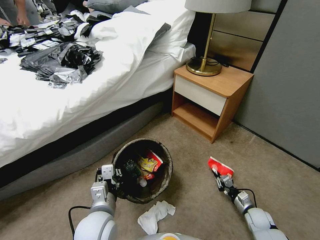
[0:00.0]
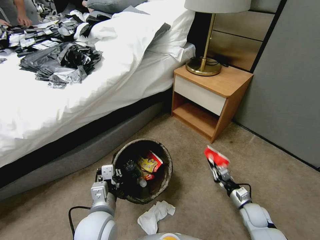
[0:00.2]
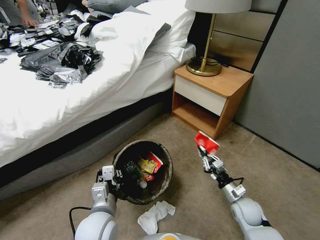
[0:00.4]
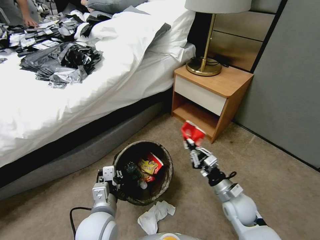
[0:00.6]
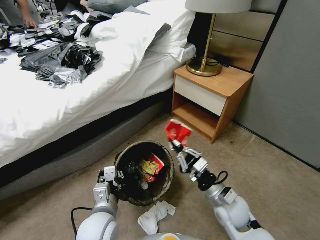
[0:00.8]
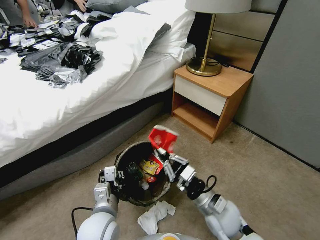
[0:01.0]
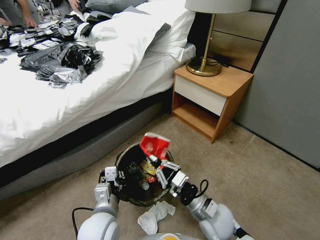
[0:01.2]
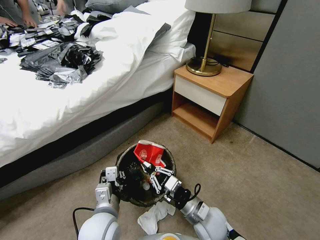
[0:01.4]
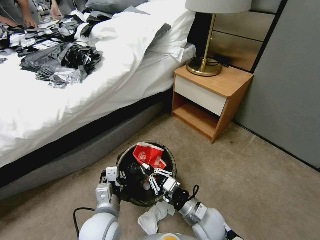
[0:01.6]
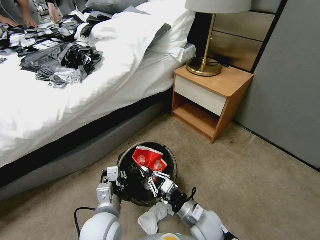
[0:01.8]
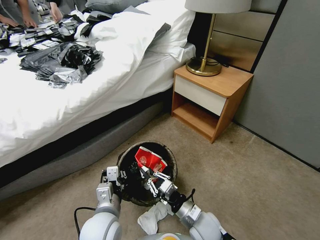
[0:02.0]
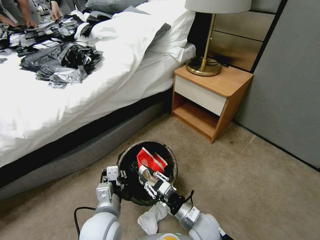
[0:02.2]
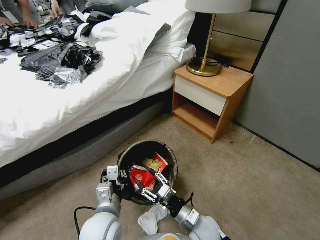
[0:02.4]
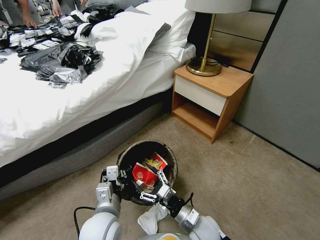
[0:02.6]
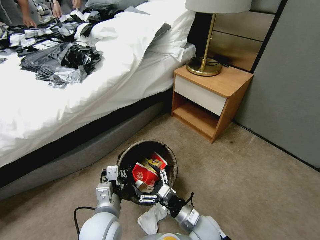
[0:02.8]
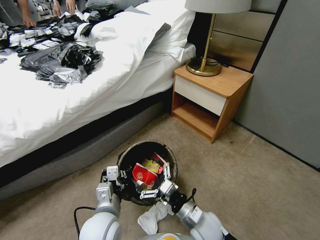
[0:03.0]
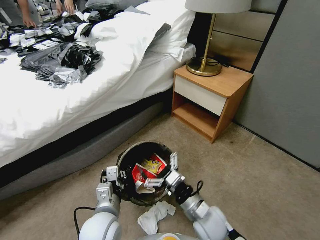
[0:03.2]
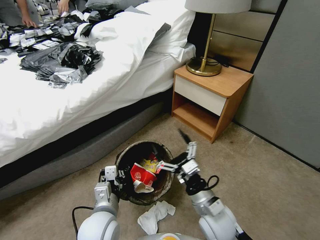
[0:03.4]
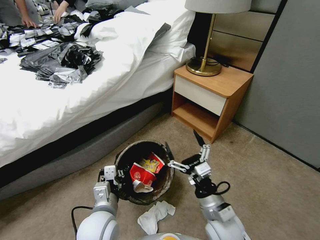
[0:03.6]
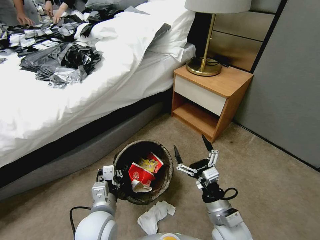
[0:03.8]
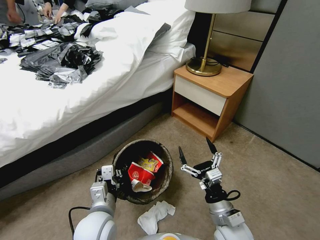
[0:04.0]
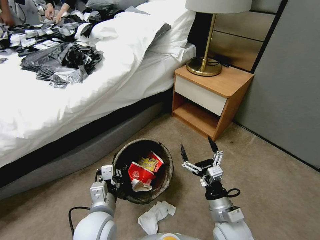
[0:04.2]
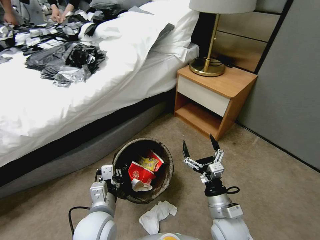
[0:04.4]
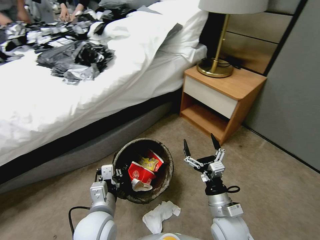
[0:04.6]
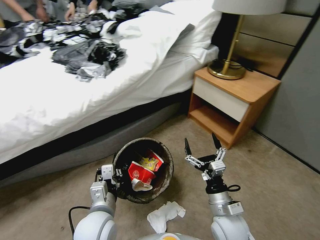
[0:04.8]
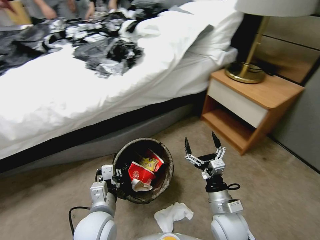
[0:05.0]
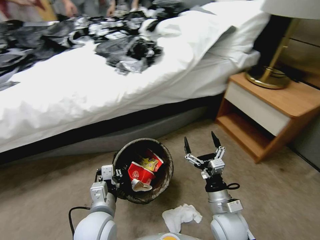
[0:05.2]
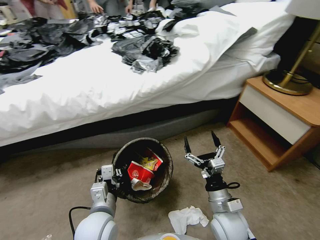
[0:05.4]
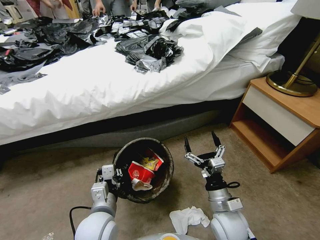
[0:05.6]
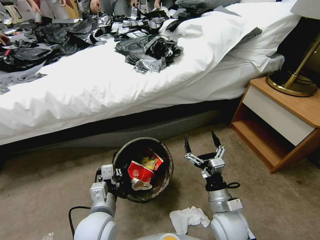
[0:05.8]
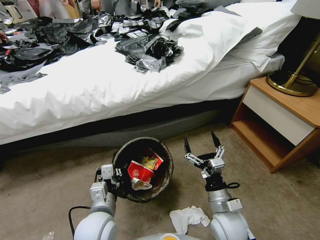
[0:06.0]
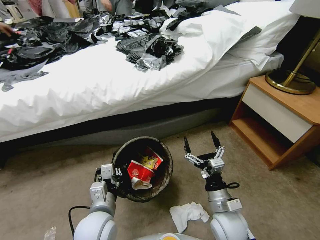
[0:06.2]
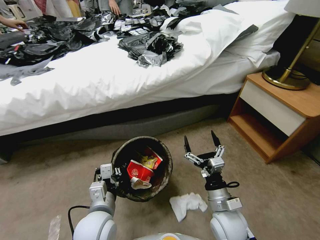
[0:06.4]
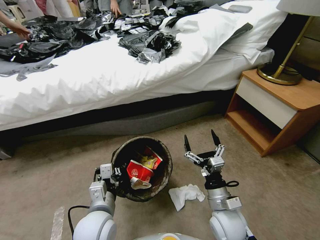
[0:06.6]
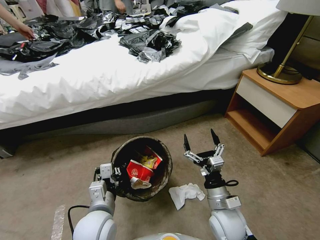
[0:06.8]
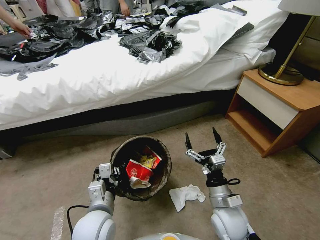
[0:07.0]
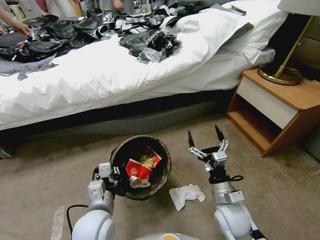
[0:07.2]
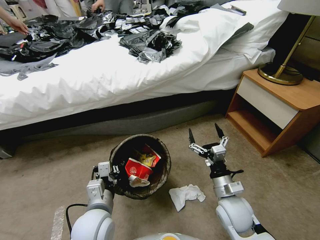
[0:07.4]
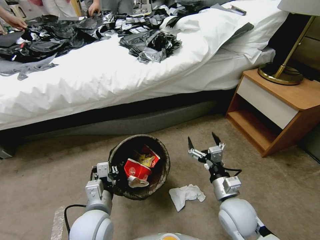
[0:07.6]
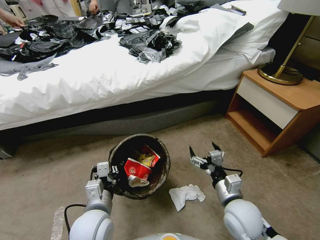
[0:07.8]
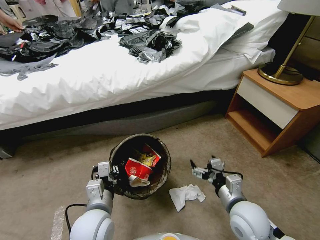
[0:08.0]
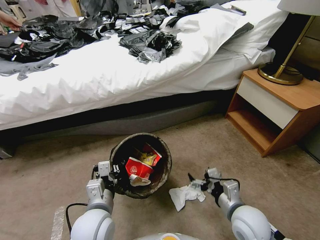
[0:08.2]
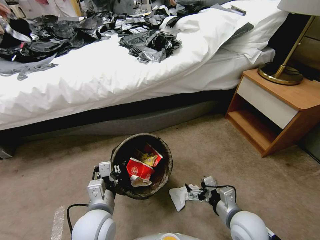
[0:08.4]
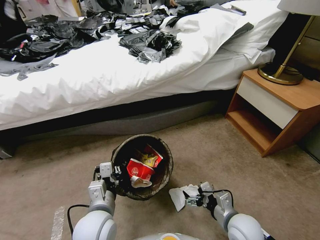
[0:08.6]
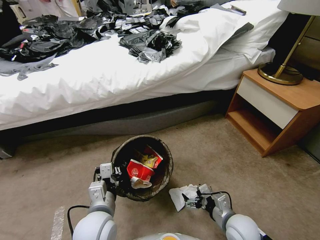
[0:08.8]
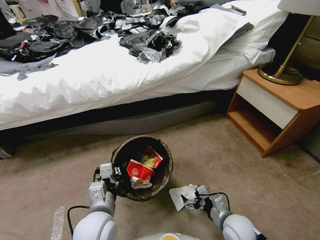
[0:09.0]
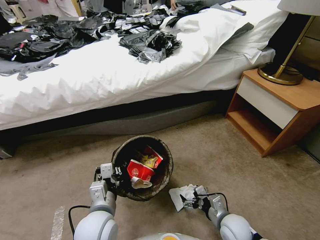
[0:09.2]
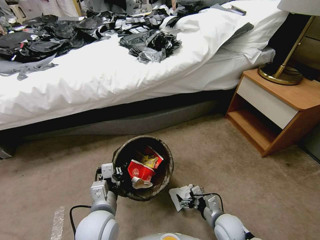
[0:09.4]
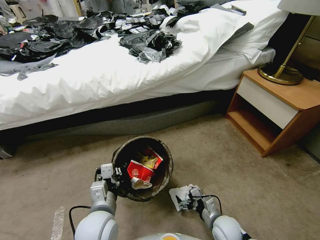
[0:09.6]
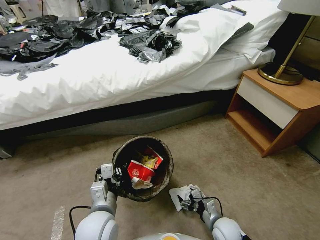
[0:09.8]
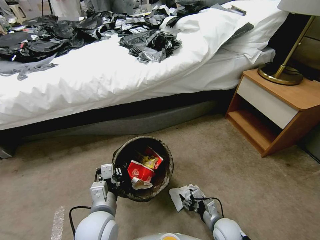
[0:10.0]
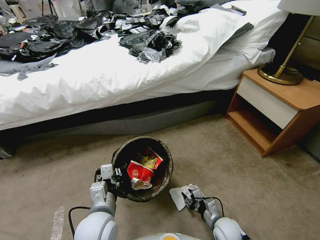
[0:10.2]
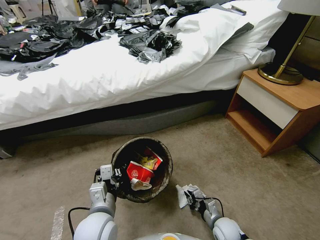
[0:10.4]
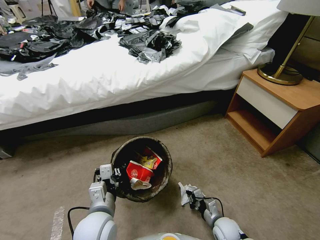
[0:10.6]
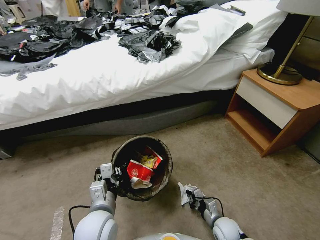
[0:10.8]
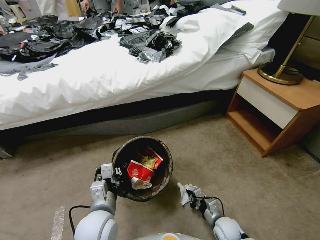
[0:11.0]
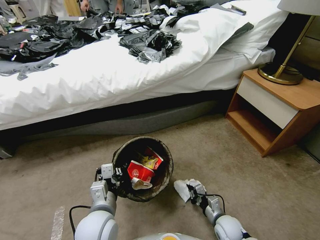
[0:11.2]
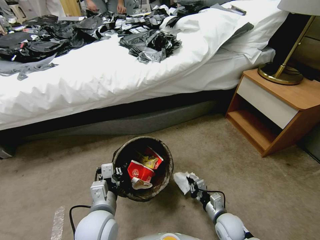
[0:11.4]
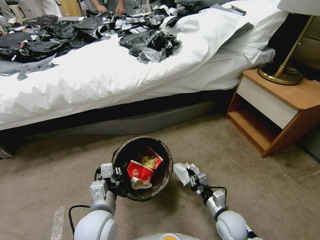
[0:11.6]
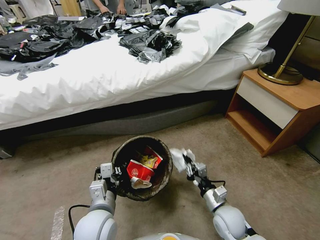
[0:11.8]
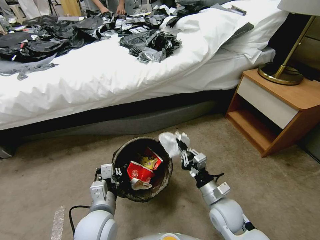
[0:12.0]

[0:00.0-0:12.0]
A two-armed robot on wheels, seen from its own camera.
Task of the whole recording: Pick up the trash bin, then pick up the garbage from the floor and place it into the trash bin.
0:00.0 to 0:01.6: The right gripper is displaced to the left and upward by some 30 cm.
0:01.6 to 0:03.0: The right gripper opens its fingers.
0:03.0 to 0:04.4: The right gripper heads to the right, covering approximately 5 cm.
0:07.6 to 0:09.0: The right gripper travels downward by approximately 10 cm.
0:09.0 to 0:10.4: The right gripper travels downward by about 10 cm, and closes up.
0:10.4 to 0:12.0: The right gripper is displaced upward by approximately 15 cm.

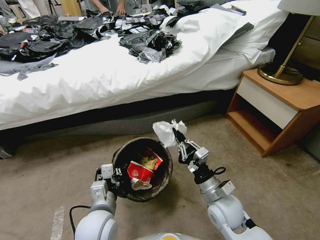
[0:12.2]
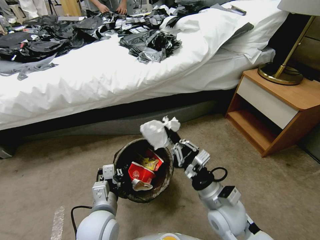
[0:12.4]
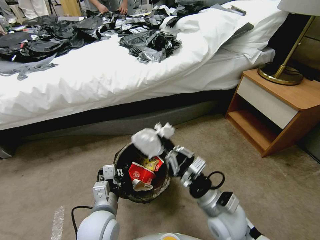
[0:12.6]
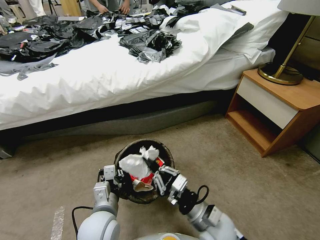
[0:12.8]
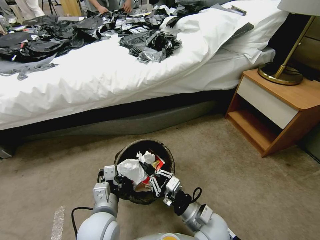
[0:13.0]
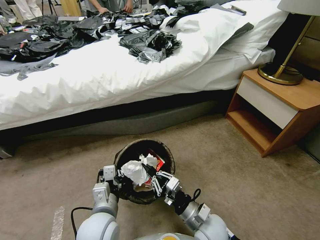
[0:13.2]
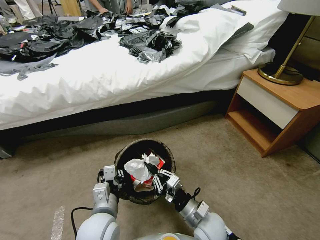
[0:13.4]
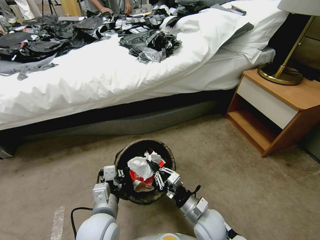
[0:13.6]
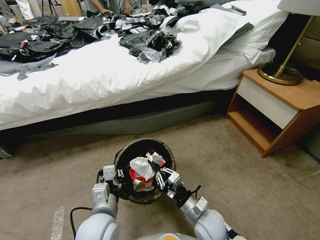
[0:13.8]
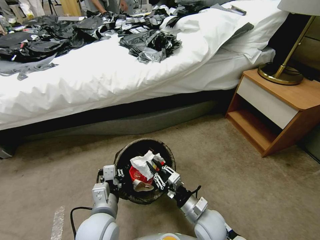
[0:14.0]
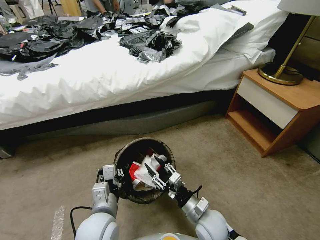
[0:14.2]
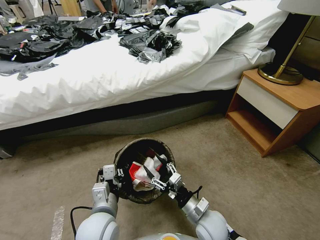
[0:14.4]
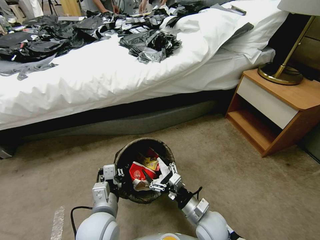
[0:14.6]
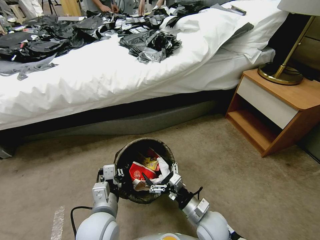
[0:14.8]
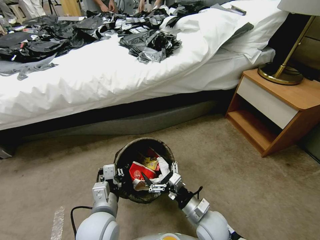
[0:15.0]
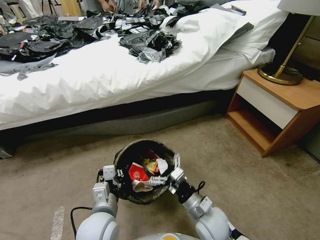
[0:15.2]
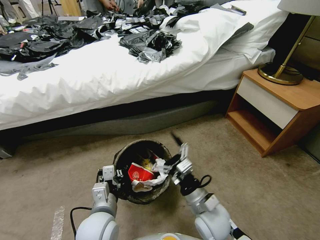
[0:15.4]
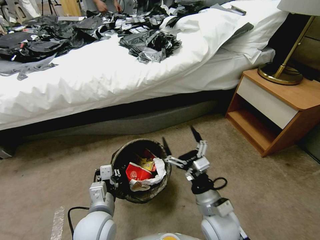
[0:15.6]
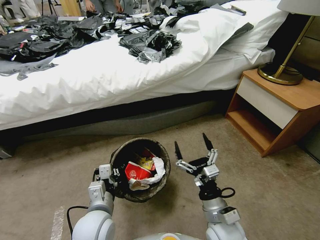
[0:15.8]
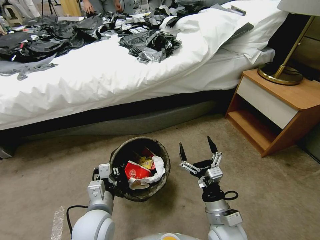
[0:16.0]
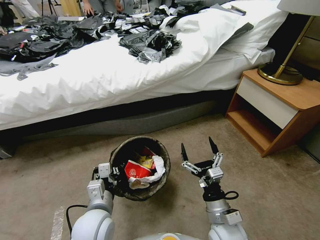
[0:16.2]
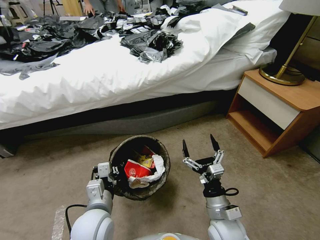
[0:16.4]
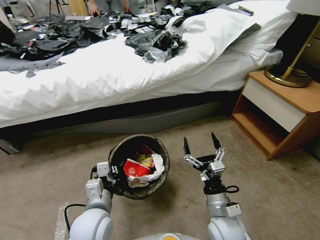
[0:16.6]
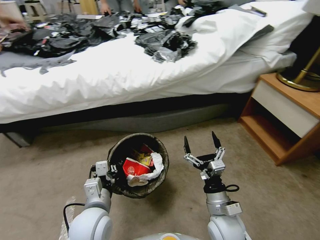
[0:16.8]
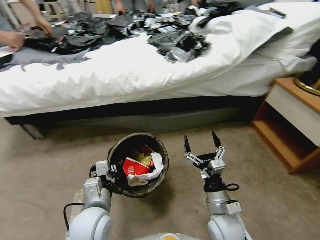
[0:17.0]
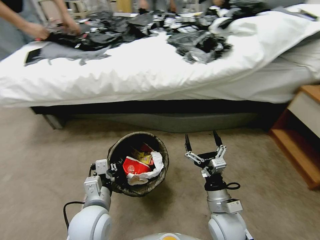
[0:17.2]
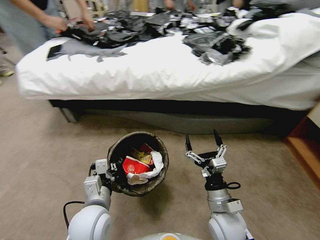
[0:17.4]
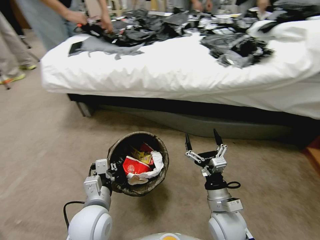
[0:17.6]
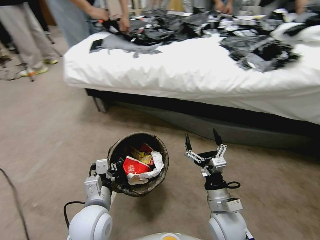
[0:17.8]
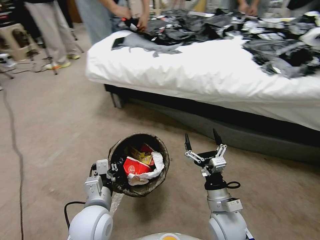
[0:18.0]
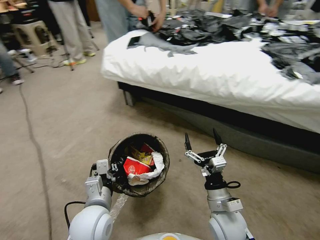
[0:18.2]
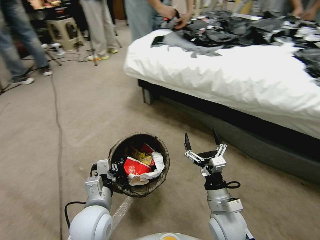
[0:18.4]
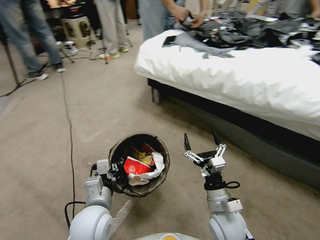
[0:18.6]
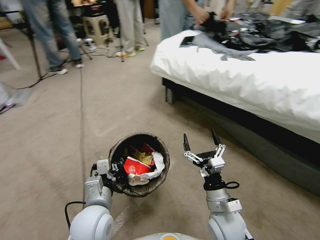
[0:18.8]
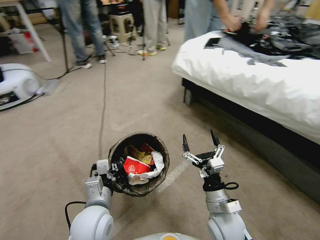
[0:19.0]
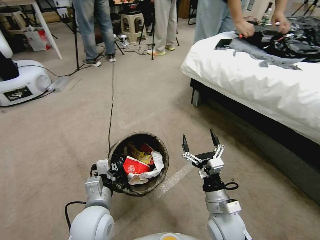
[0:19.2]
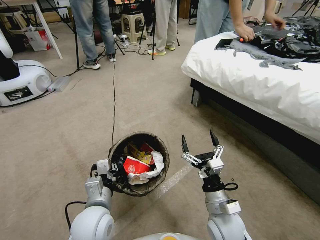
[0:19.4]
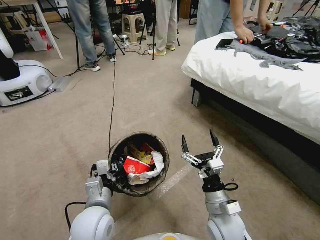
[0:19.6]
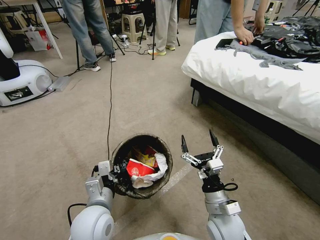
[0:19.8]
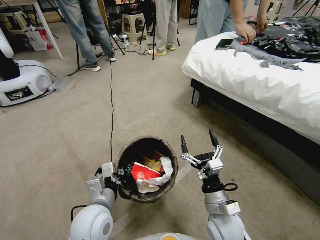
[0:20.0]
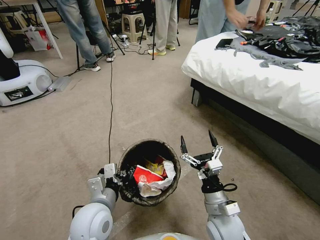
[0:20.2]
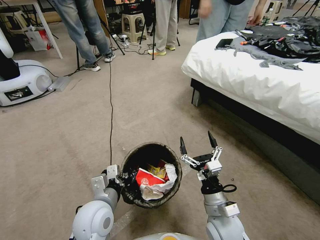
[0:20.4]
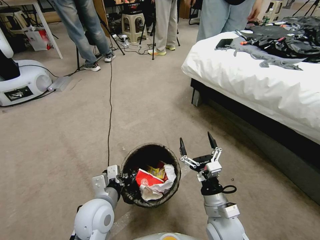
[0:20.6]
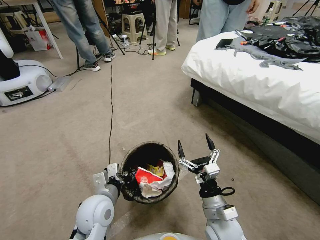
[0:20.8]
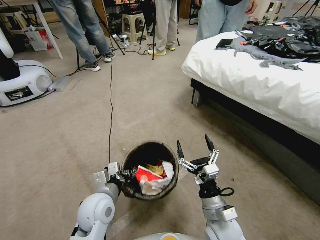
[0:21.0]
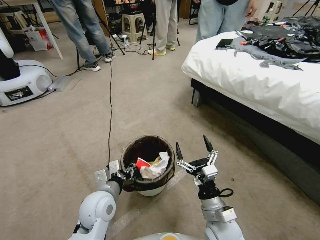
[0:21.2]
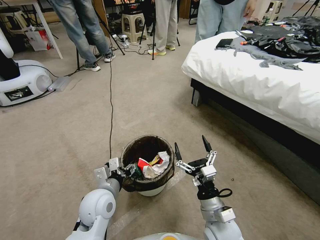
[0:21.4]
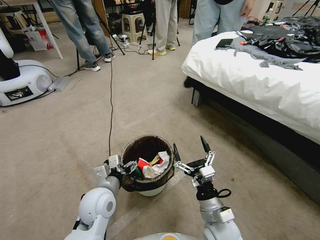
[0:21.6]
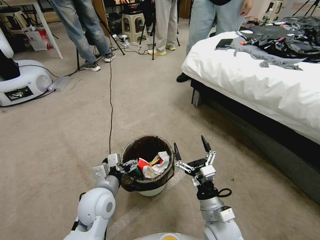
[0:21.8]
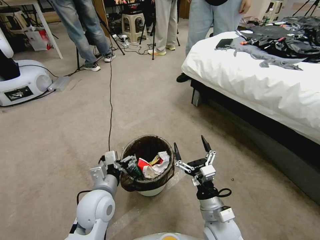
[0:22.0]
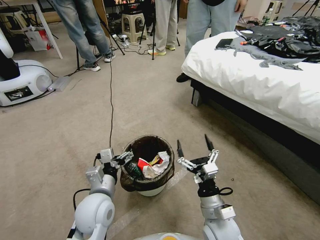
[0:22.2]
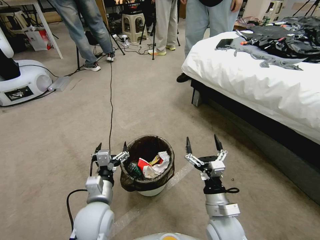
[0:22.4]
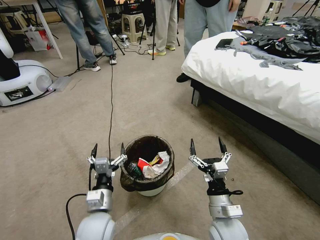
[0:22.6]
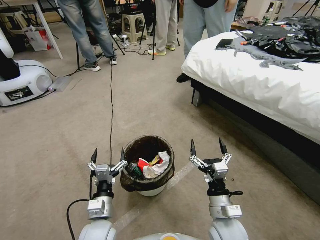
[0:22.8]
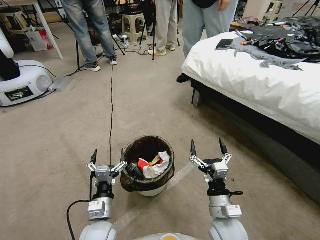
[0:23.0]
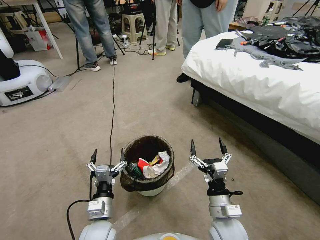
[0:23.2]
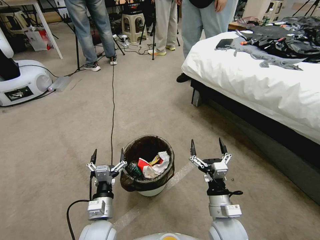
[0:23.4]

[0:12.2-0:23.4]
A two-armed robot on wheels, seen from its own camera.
Task of the whole recording: Pick up the trash bin, then pick up the garbage from the floor and place it into the trash bin.
0:12.2 to 0:13.8: The right gripper travels downward by some 10 cm.
0:13.8 to 0:15.4: The right gripper heads upward, covering roughly 10 cm, and opens up.
0:20.2 to 0:21.8: The left gripper opens up.
0:21.8 to 0:23.4: The left gripper travels downward and backward by about 10 cm.
